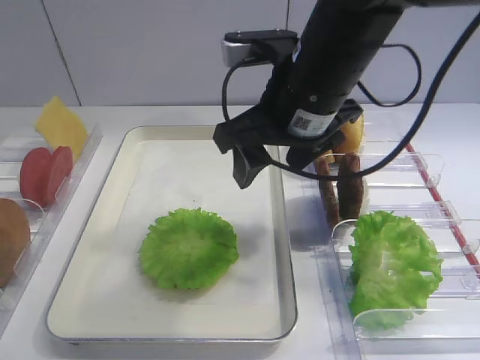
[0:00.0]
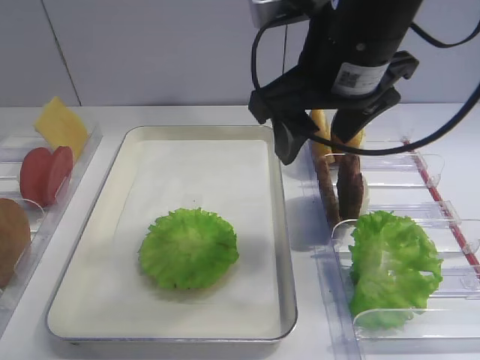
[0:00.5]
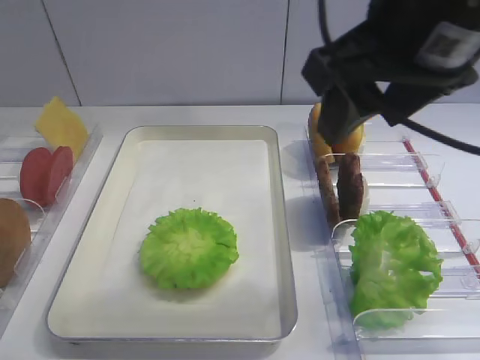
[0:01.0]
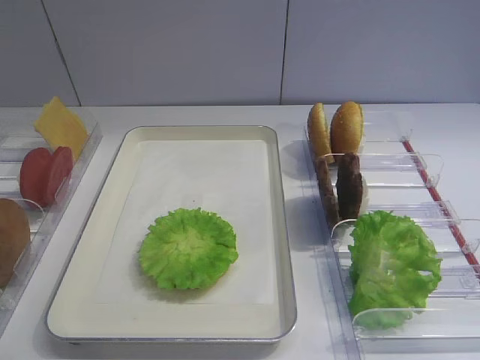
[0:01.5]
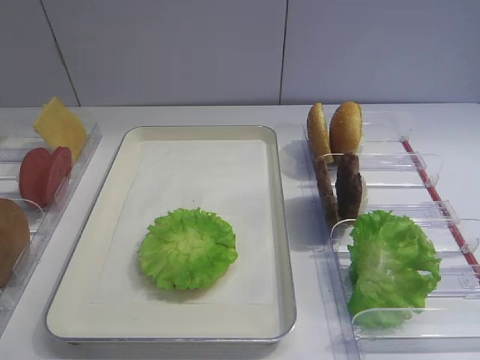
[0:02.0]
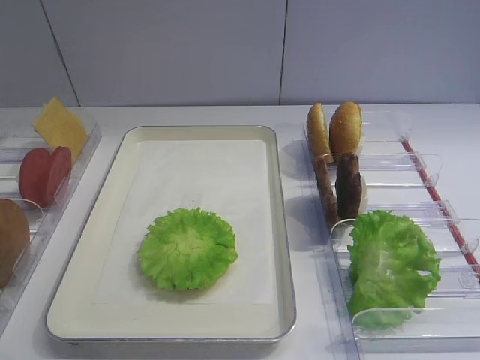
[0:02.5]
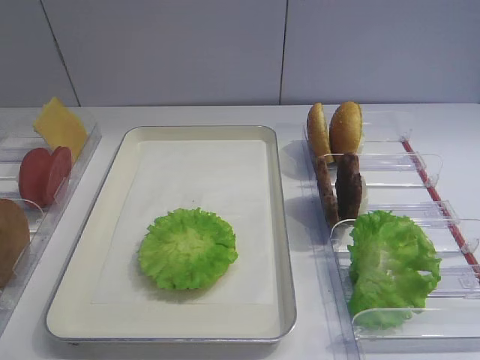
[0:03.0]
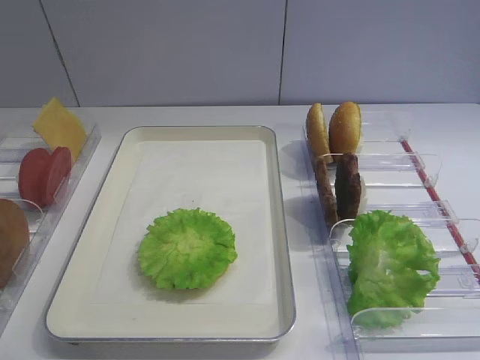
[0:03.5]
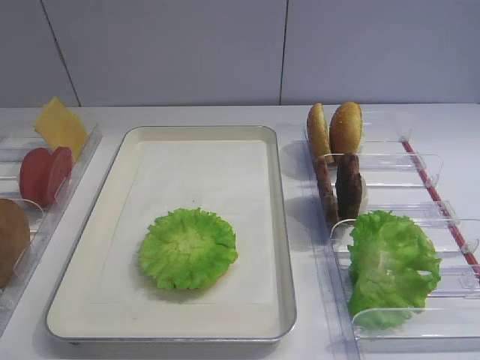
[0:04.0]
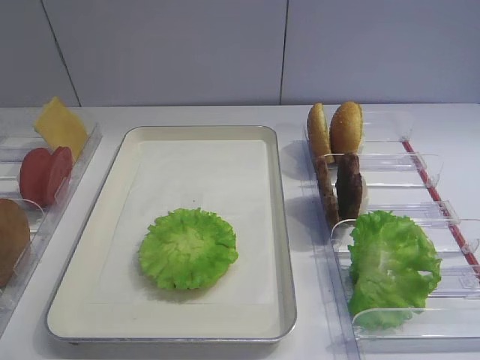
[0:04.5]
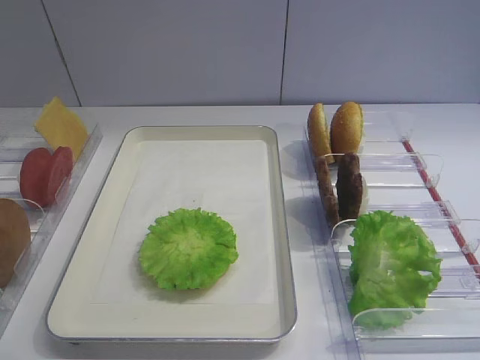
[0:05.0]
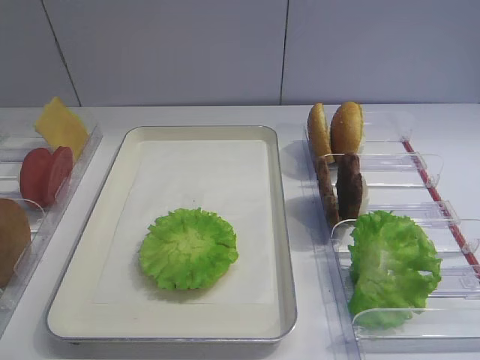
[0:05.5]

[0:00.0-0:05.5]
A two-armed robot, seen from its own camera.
0:00.0 to 0:02.0: The right gripper goes about 30 cm backward and to the right.
0:03.5 to 0:05.5: Both grippers stay put.
